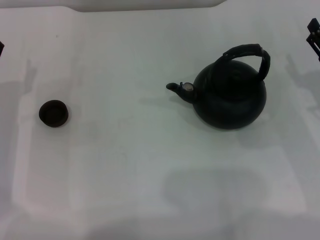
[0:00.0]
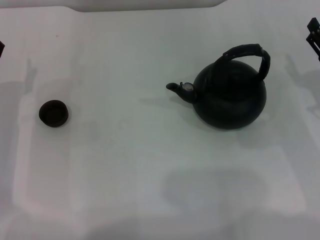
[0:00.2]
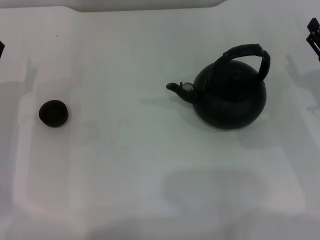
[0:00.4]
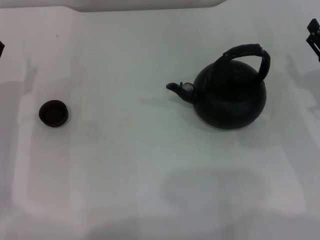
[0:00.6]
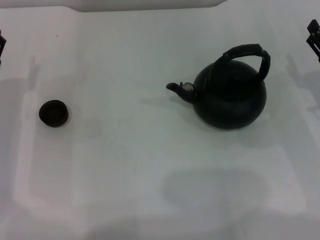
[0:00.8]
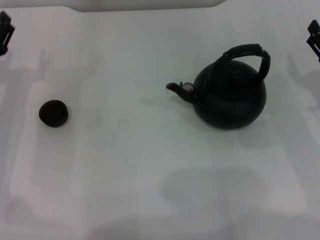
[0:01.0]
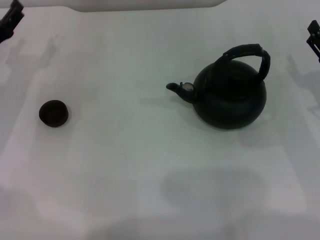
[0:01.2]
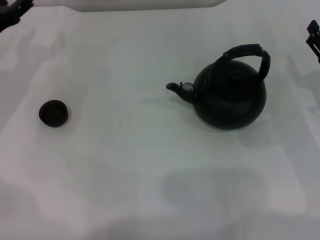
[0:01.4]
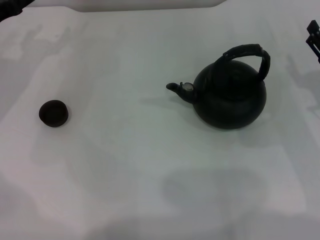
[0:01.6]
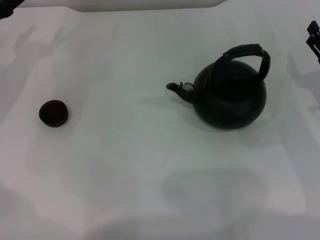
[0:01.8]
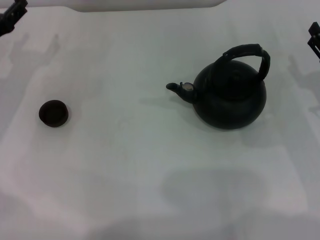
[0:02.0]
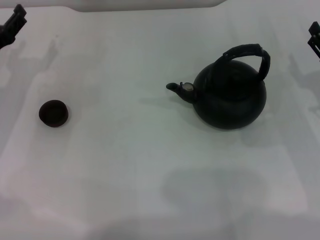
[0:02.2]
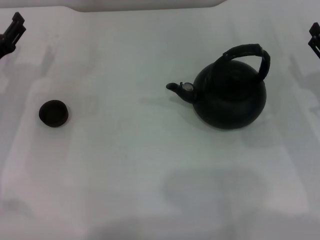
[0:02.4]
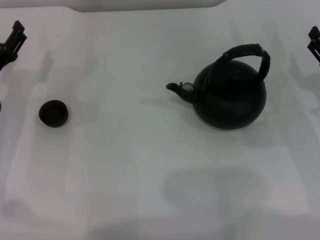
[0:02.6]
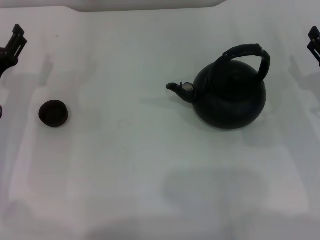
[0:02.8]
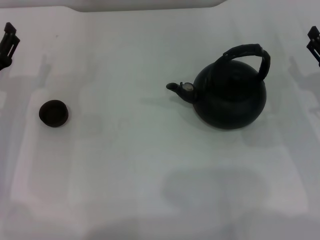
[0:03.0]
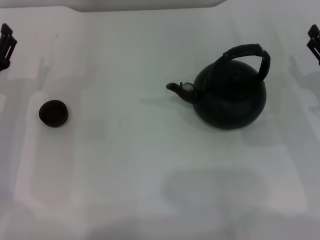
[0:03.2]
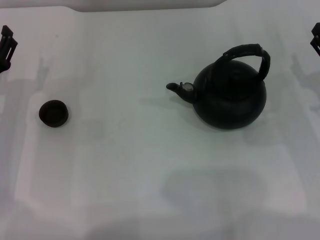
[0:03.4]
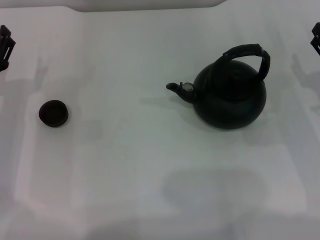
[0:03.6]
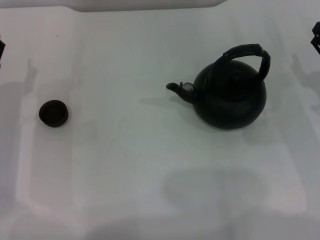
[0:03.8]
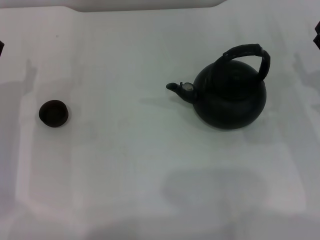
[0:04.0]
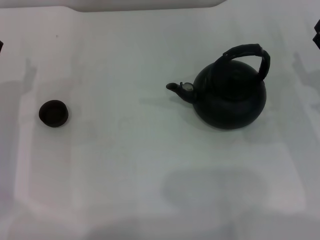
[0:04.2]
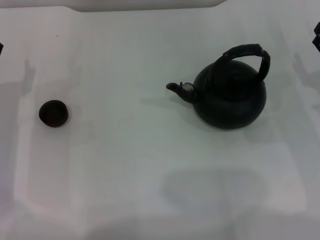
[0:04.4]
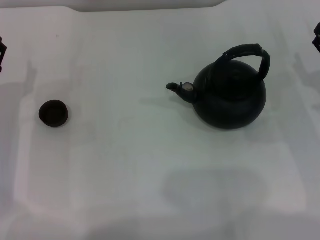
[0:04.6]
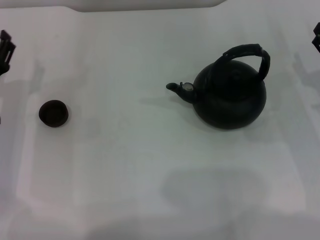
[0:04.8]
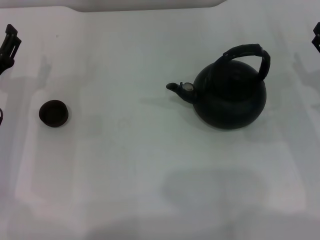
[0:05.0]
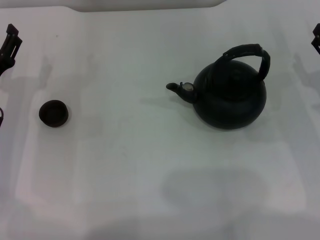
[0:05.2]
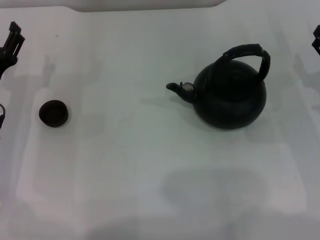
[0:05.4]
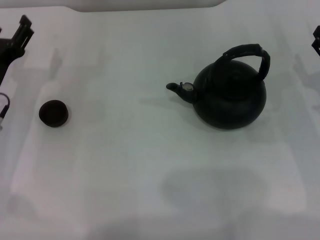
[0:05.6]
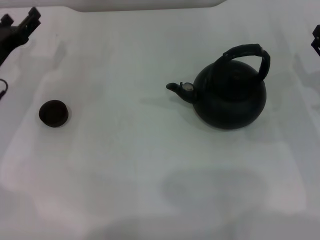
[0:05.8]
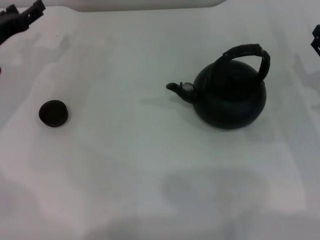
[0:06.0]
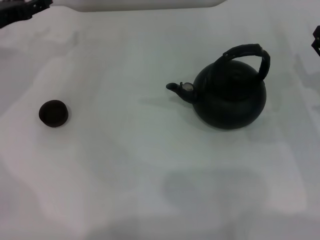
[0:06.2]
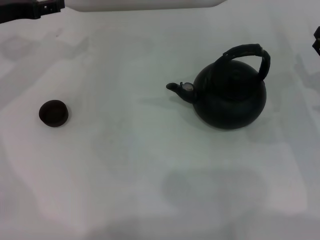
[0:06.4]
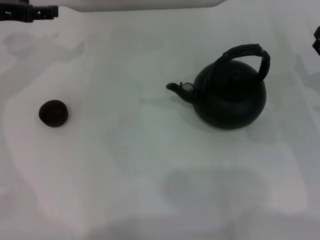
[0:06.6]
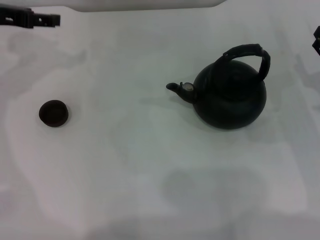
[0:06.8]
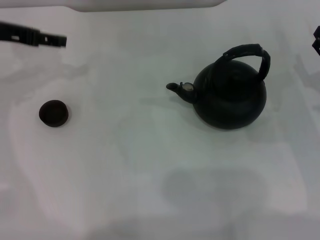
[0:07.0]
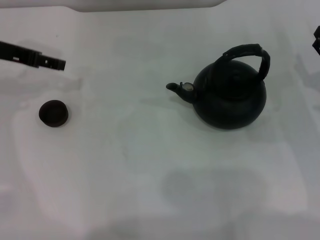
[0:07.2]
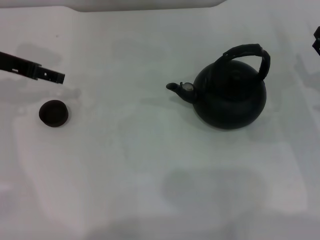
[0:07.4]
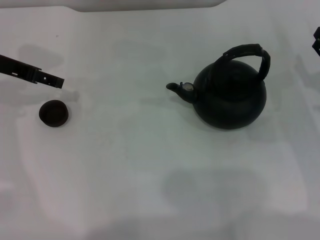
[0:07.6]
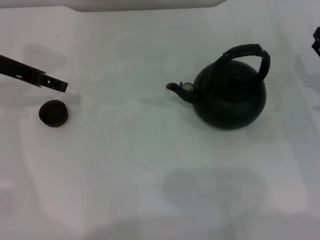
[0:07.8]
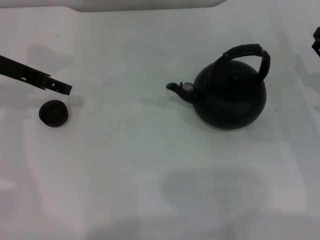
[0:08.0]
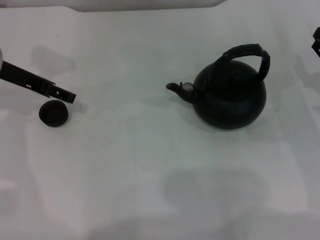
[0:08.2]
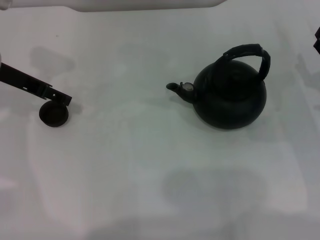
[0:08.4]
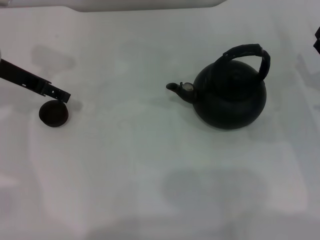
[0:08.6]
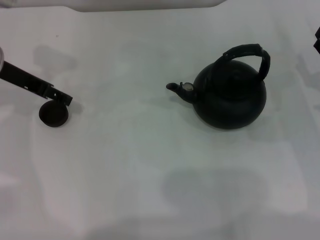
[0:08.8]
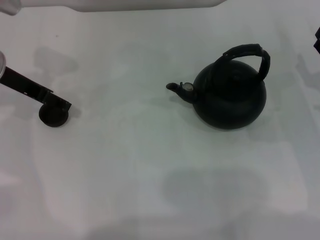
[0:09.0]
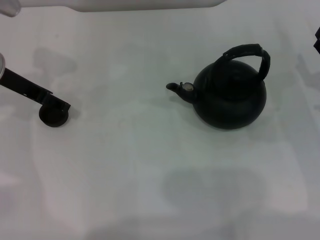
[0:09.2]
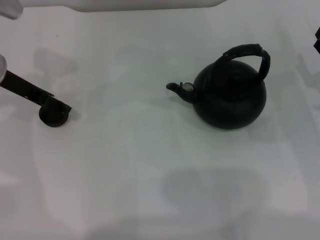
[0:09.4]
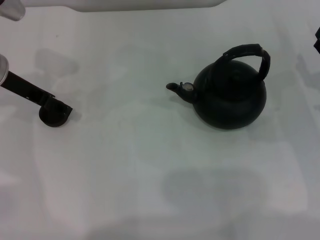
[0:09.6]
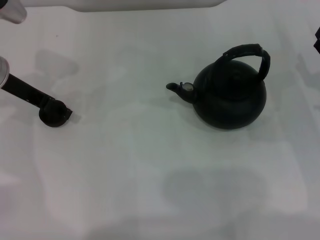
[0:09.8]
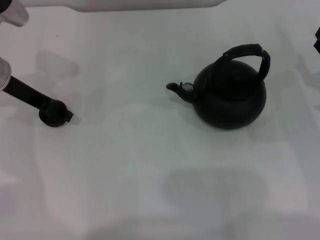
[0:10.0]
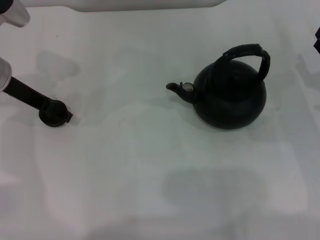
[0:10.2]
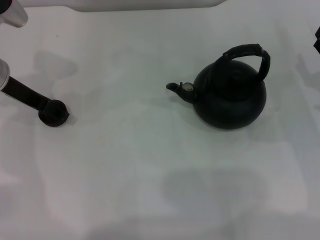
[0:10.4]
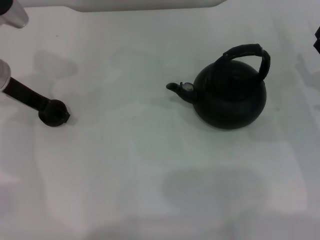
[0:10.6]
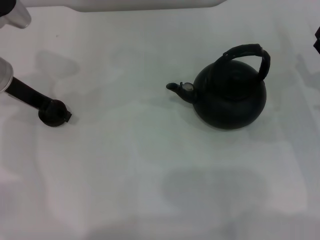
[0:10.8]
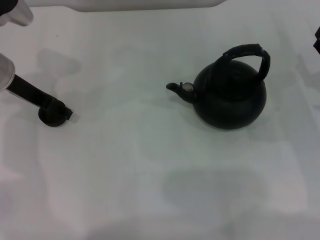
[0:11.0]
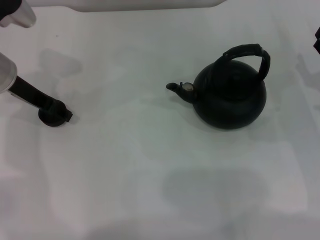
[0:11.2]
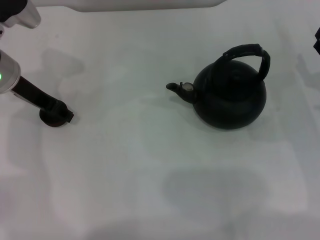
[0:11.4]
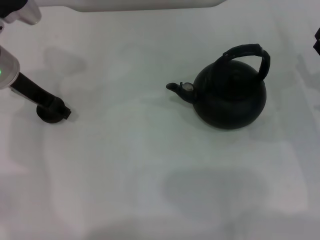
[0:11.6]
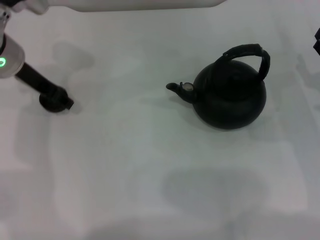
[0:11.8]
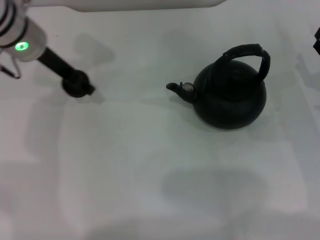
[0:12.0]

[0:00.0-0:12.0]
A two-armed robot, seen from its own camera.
Task of the whole recording: Grasp the handle of the teapot with one hand and pour tea into the teacup.
Step, 0:00.0 to 0:11.8: Pick up the teacup with the left gripper.
0:00.0 to 0:01.6: The left gripper heads forward and upward, covering about 15 cm.
0:01.6 to 0:03.0: The left gripper travels backward and downward by some 10 cm.
0:03.0 to 0:04.4: The grippers move only a little.
0:04.4 to 0:06.0: The left gripper moves forward and upward, approximately 10 cm.
0:06.0 to 0:07.6: The left gripper moves upward, approximately 10 cm.
0:07.6 to 0:09.0: The grippers make only small movements.
0:09.0 to 0:10.4: Both grippers stay about where they are.
0:10.4 to 0:12.0: The left gripper heads to the right, covering about 5 cm, and closes up.

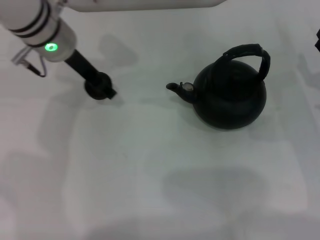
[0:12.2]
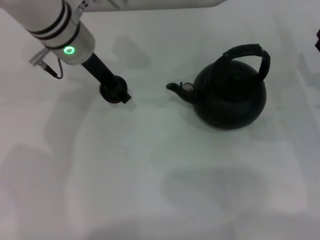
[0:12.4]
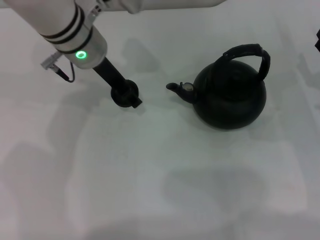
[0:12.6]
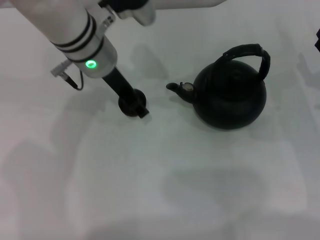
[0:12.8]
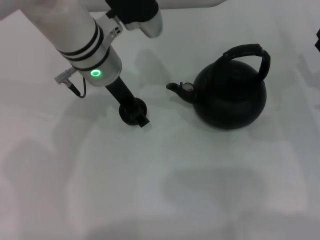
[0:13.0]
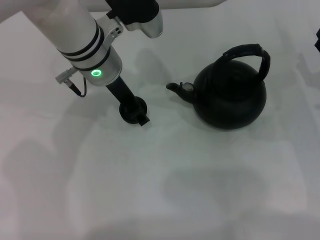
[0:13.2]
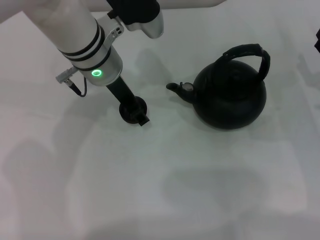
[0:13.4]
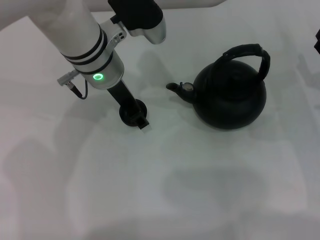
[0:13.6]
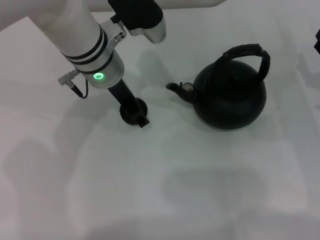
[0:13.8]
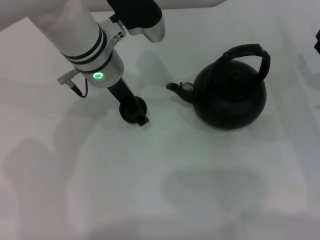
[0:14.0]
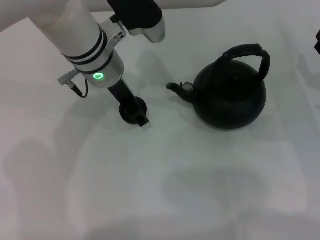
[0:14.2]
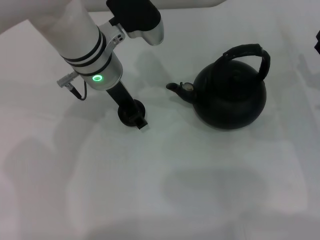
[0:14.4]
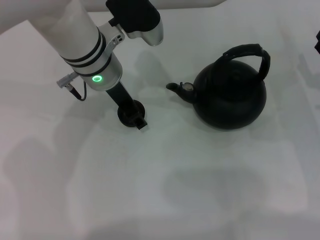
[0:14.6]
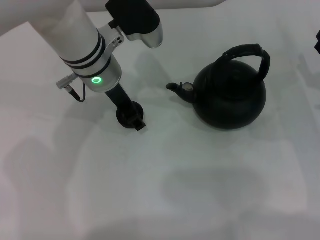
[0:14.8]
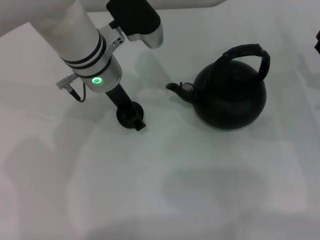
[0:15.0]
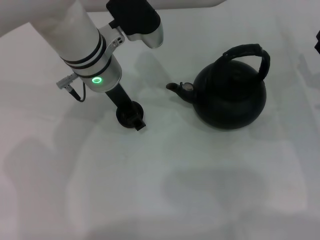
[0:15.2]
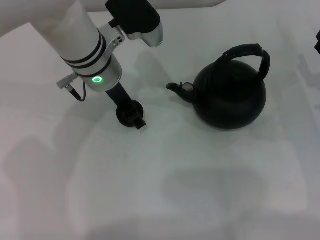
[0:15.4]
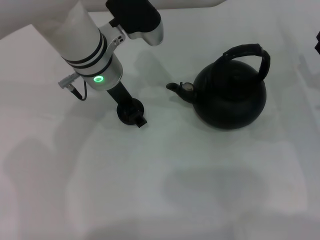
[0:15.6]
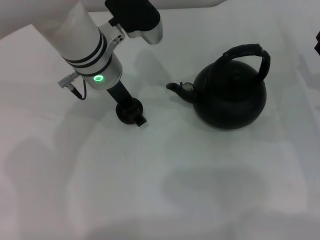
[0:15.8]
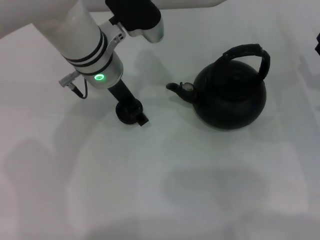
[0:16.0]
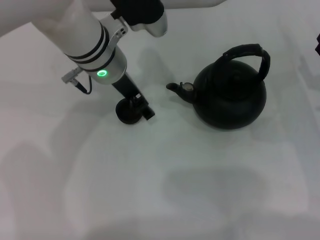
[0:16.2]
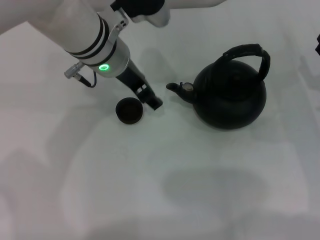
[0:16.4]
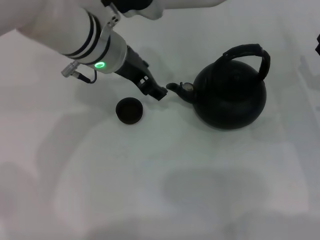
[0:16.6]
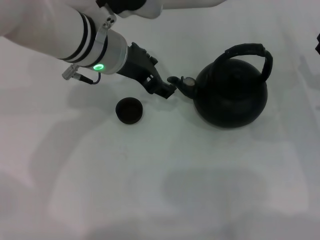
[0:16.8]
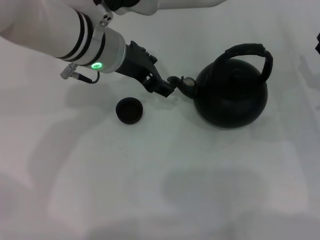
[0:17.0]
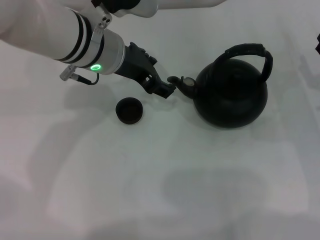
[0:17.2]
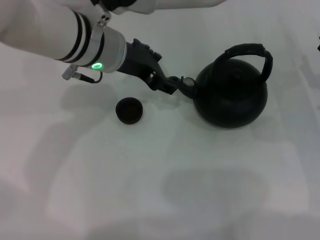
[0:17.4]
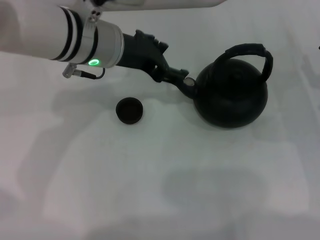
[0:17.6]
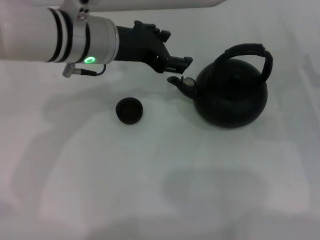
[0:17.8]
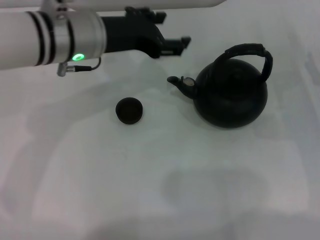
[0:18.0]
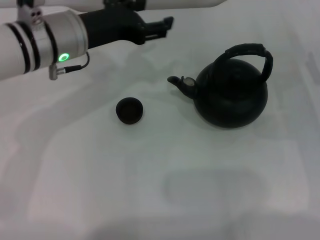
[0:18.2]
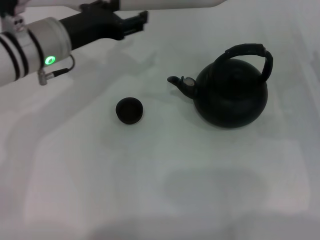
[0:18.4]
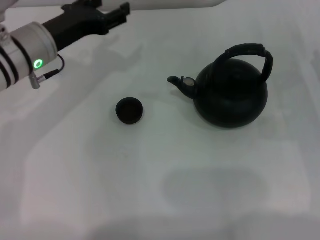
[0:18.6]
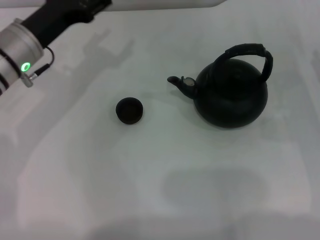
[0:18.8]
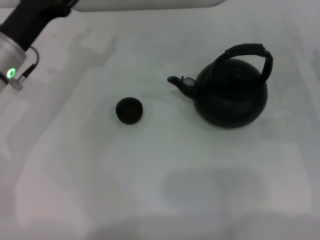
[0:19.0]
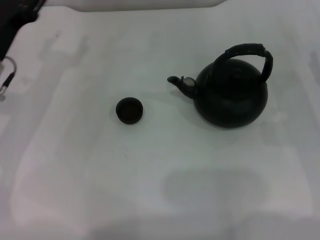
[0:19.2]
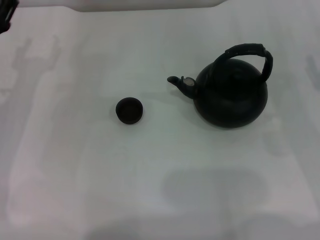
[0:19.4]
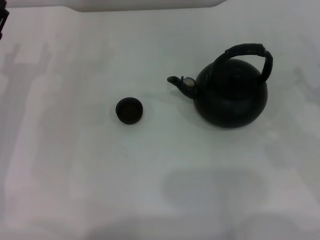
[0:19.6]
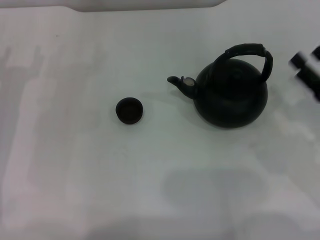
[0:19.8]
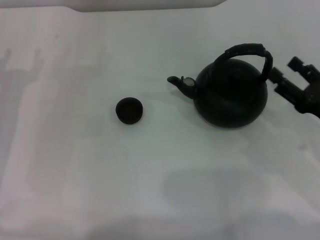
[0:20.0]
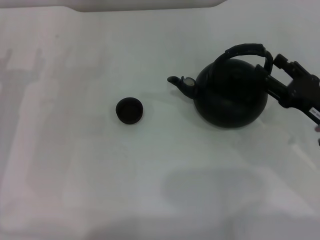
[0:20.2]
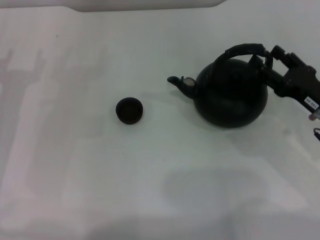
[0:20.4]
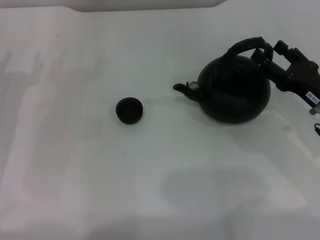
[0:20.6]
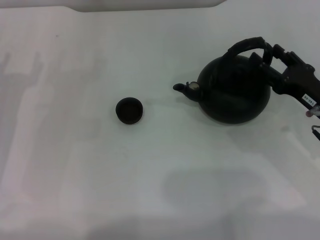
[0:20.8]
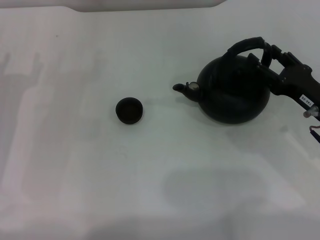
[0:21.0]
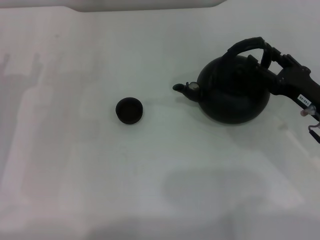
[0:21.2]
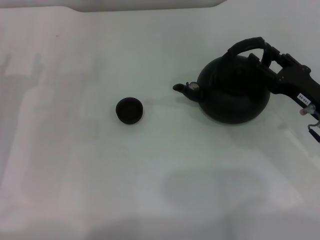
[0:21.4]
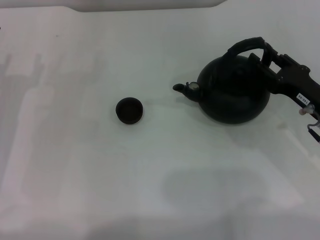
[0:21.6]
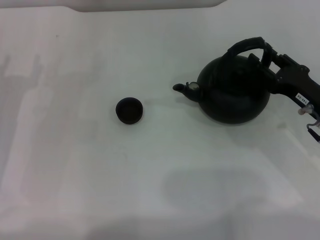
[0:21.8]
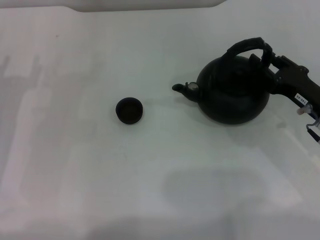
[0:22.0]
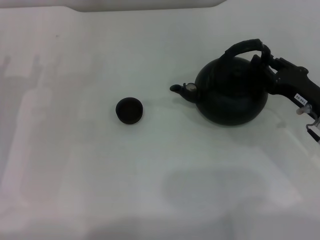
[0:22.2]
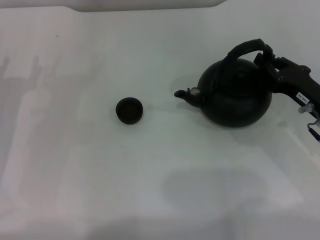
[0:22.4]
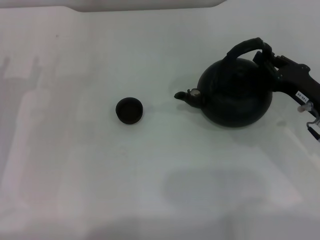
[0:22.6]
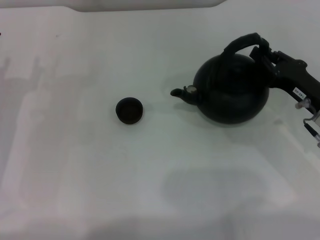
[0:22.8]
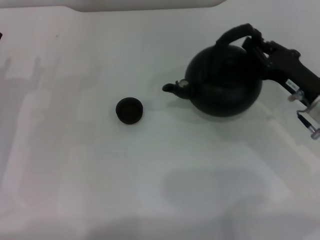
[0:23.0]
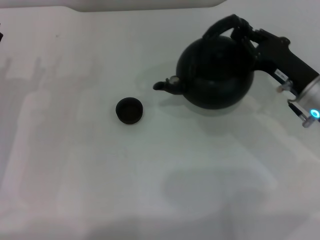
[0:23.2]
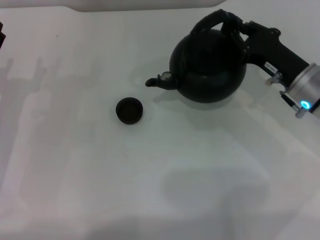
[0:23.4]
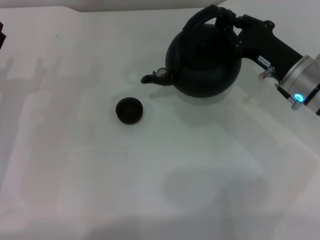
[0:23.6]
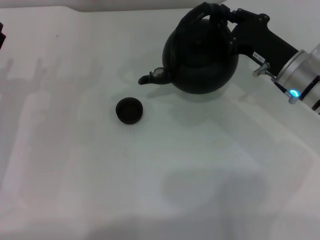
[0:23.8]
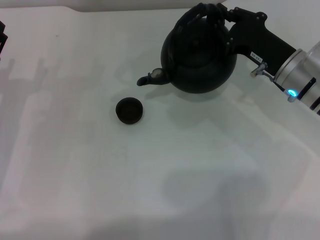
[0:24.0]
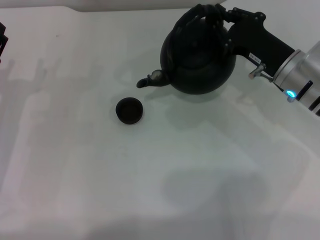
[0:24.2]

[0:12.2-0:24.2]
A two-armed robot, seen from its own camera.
Task of the whole recording: Grasp the handle of the teapot with one hand and pour tea into the teacup.
Step, 0:12.2 to 0:16.6: Place the teacup in the center of view with the left gripper.
Step, 0:16.8 to 0:23.2: Pick up the teapot with the right gripper.
0:12.2 to 0:13.8: The left gripper travels to the right by roughly 5 cm.
0:13.8 to 0:15.2: Both grippers stay about where they are.
0:15.2 to 0:16.6: The left gripper opens up.
0:16.6 to 0:18.2: The left gripper travels to the left by approximately 5 cm.
0:18.2 to 0:19.8: The right gripper goes some 5 cm backward. The left gripper travels to the left, downward and backward by about 20 cm.
0:19.8 to 0:21.2: The right gripper shifts by about 5 cm.
0:21.2 to 0:22.6: The right gripper closes its fingers.
0:22.6 to 0:24.2: The right gripper goes approximately 10 cm to the left and forward.
